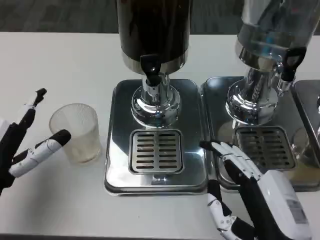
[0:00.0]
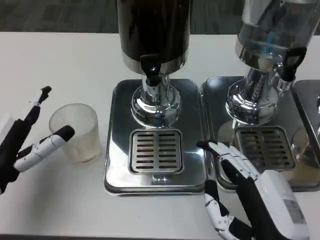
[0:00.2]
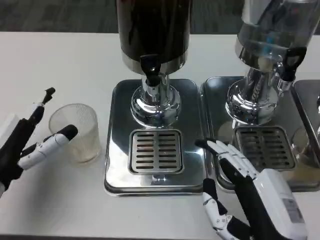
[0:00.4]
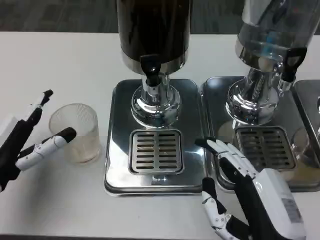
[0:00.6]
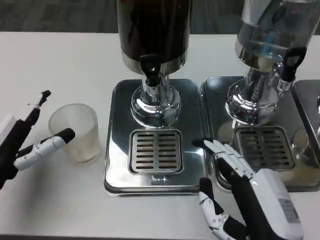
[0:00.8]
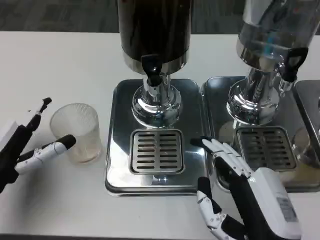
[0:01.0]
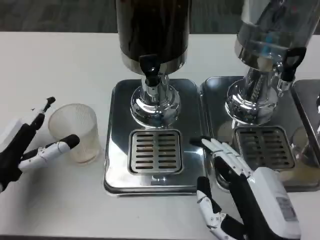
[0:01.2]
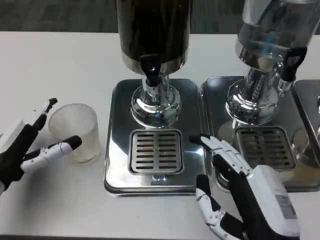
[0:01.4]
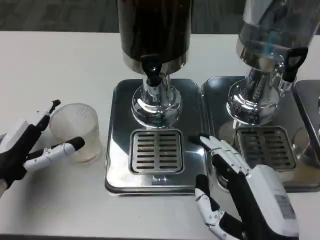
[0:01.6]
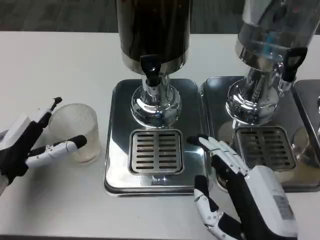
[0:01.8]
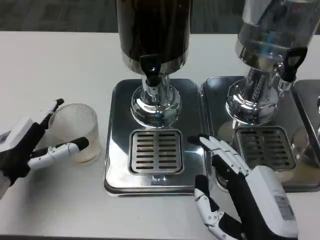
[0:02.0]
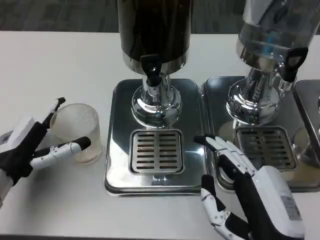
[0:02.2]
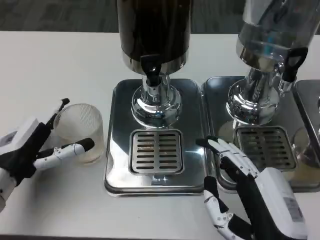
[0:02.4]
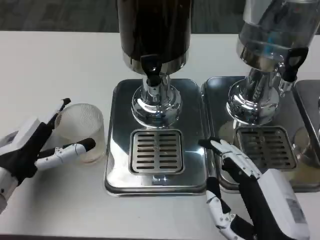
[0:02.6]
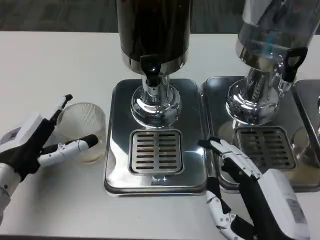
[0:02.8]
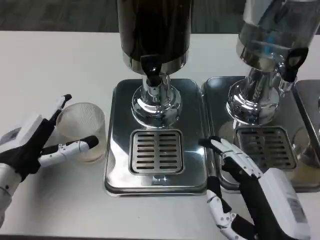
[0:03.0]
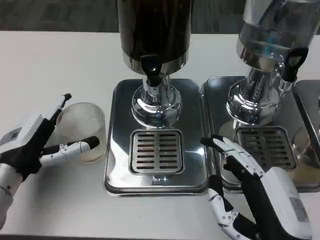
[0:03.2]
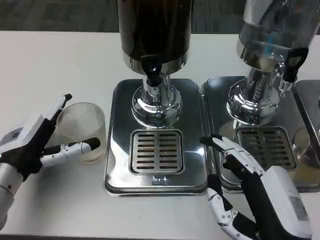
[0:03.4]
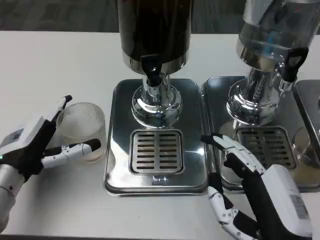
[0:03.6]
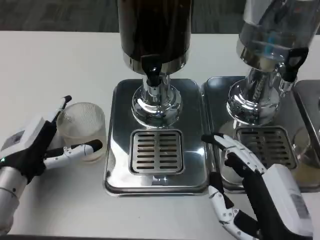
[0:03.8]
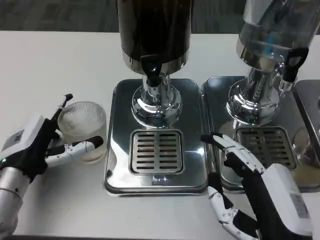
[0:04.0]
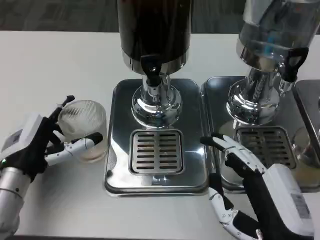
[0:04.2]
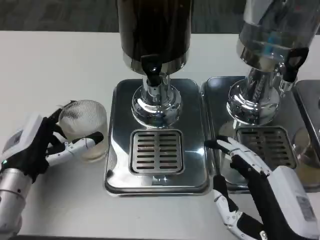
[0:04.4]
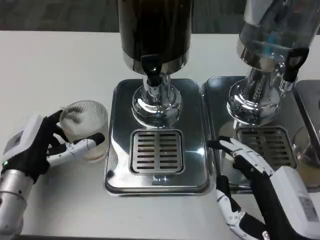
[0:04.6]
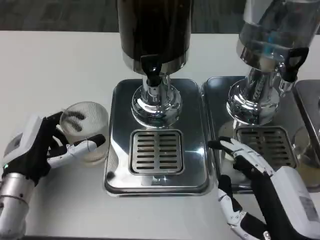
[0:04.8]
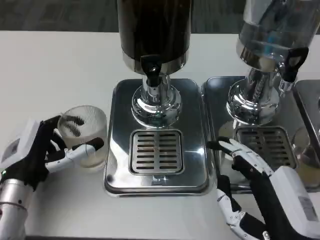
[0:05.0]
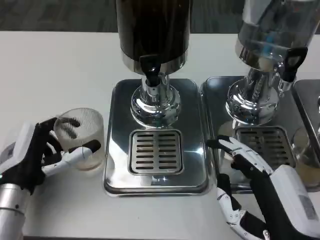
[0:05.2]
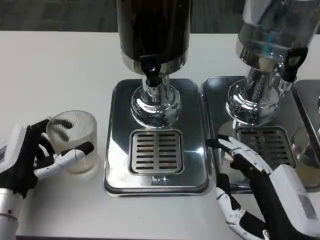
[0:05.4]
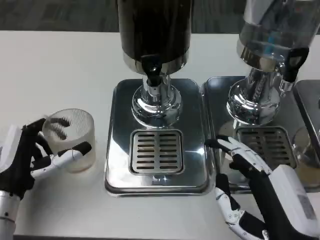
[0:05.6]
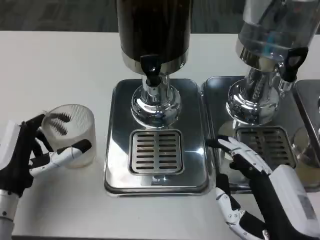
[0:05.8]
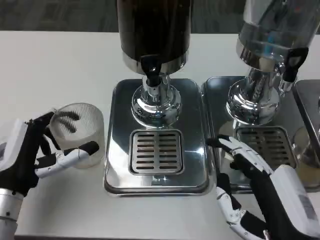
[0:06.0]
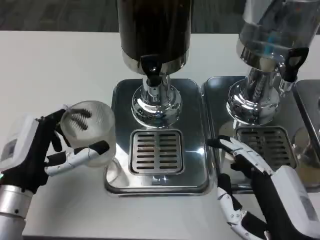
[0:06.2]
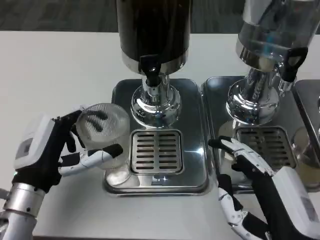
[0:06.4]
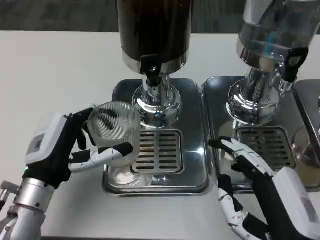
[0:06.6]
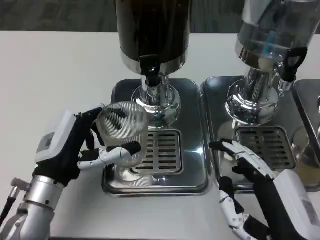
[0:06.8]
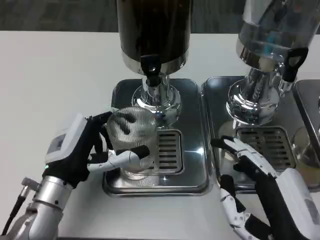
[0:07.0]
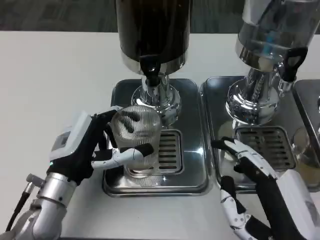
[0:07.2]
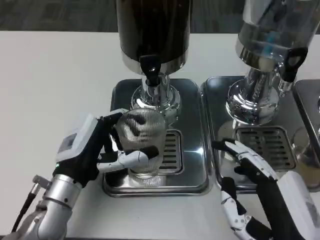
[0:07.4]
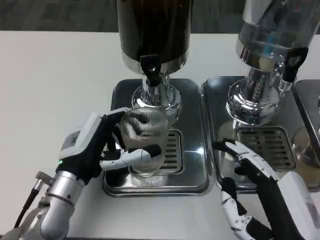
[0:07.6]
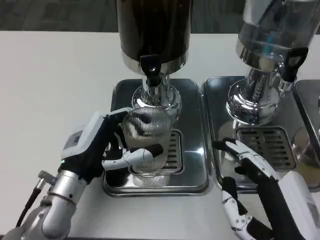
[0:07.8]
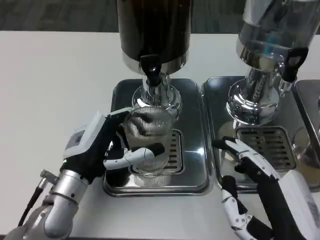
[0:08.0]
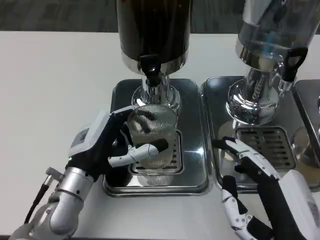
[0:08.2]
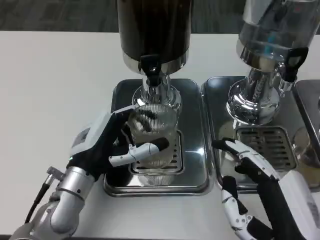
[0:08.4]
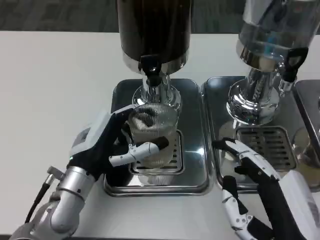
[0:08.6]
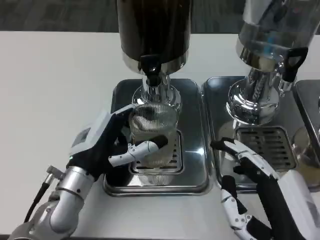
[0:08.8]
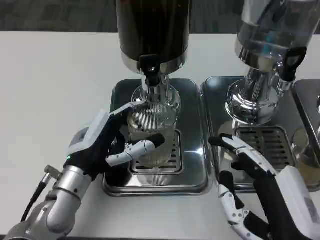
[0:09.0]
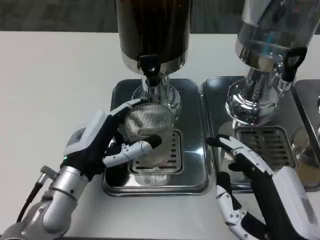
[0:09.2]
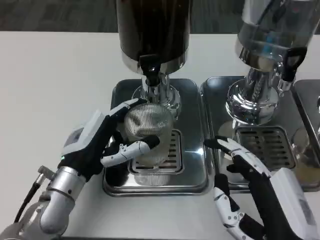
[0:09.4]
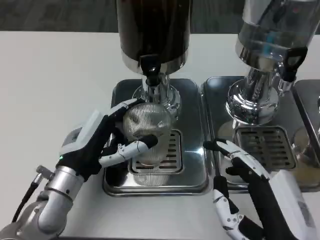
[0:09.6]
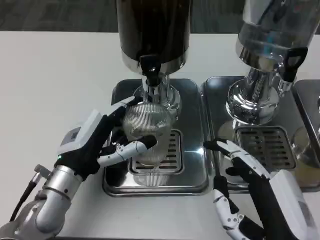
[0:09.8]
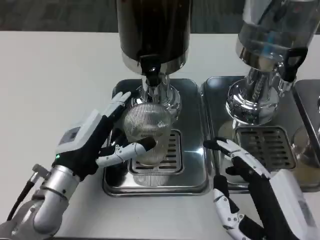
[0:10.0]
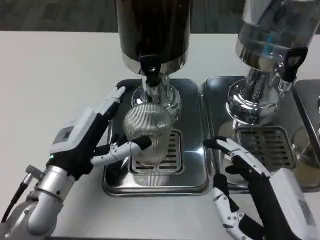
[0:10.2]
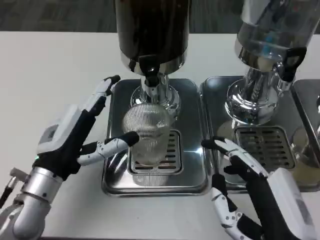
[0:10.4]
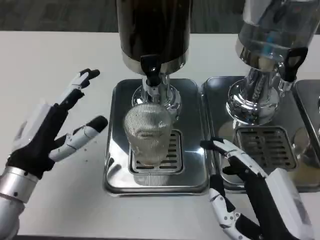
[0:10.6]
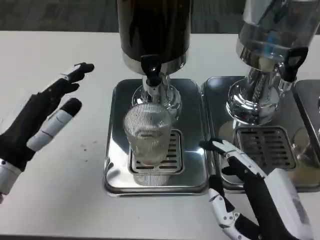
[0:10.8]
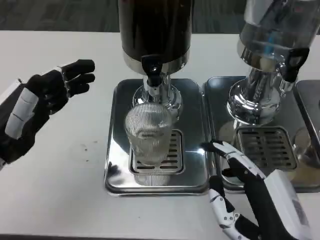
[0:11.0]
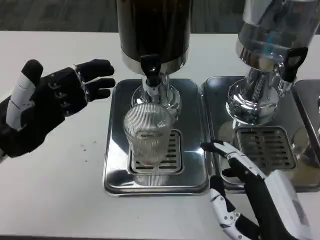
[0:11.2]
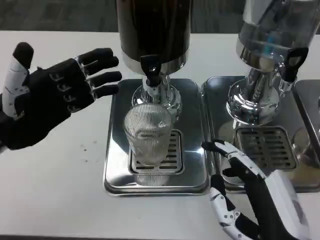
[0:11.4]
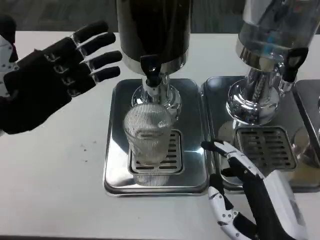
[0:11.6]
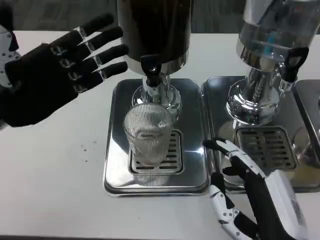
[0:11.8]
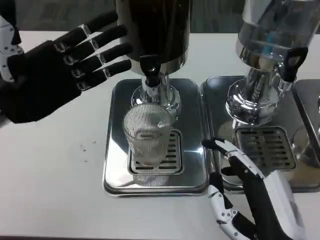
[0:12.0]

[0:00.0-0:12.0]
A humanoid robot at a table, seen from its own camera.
Task of the whole recording: Grasp the cup under the faucet to collect the drink, then remove the cup.
0:00.0 to 0:03.0: The hands make only small movements.
0:03.0 to 0:04.4: The hands move only a little.
0:04.4 to 0:06.0: There are only small adjustments of the hands.
0:06.0 to 0:07.6: The left hand moves to the right, about 5 cm.
0:07.6 to 0:09.0: There are only small adjustments of the hands.
0:10.4 to 0:12.0: The left hand travels upward, to the left and forward by some 15 cm.

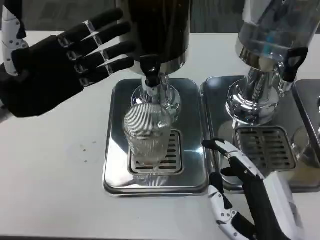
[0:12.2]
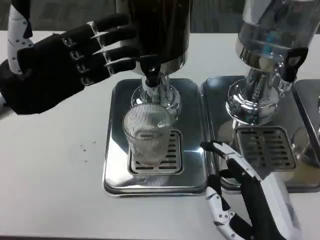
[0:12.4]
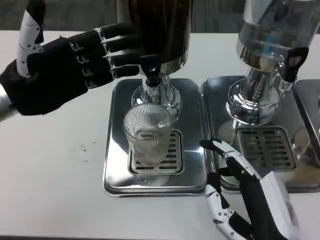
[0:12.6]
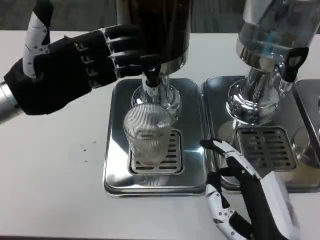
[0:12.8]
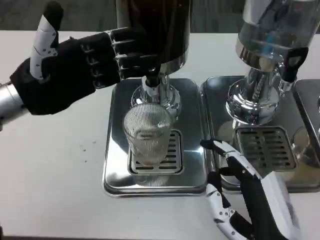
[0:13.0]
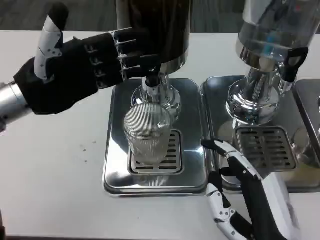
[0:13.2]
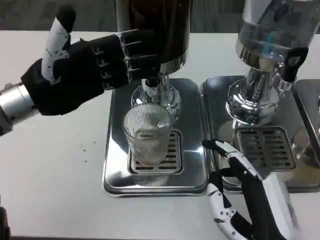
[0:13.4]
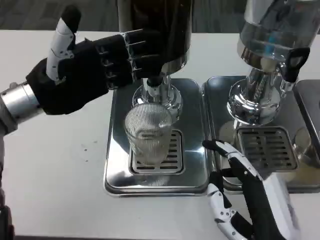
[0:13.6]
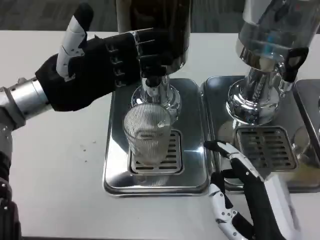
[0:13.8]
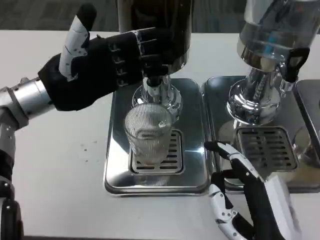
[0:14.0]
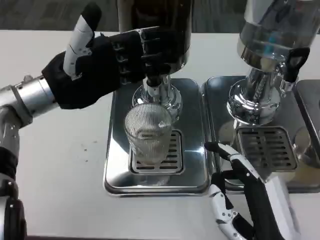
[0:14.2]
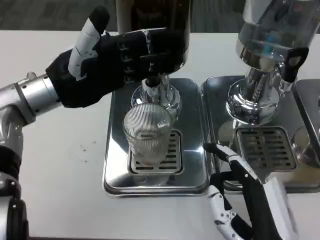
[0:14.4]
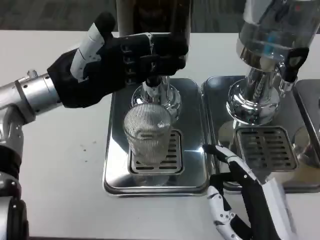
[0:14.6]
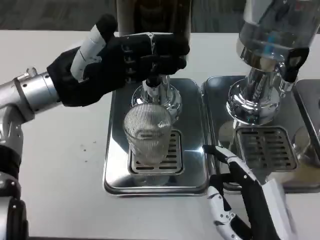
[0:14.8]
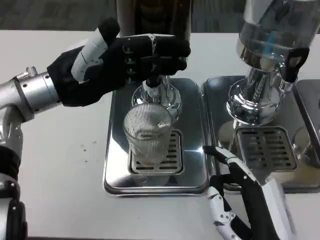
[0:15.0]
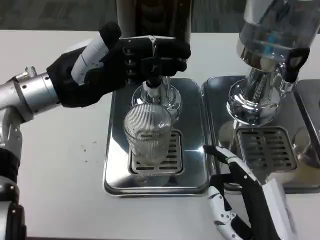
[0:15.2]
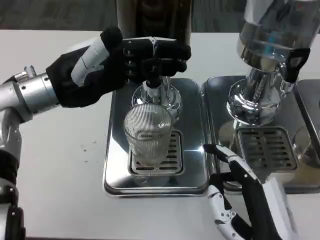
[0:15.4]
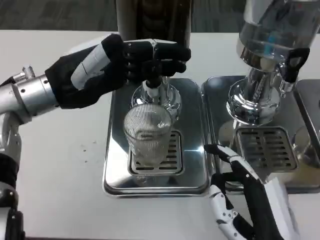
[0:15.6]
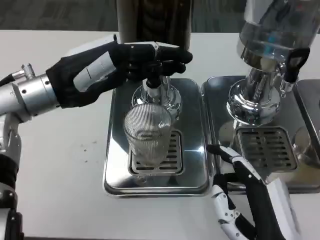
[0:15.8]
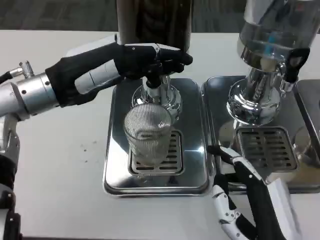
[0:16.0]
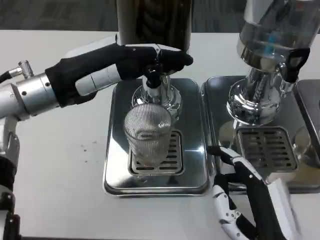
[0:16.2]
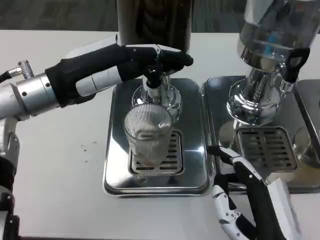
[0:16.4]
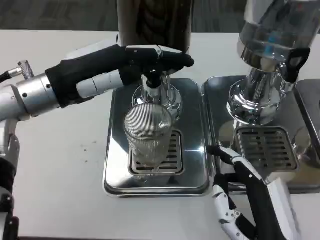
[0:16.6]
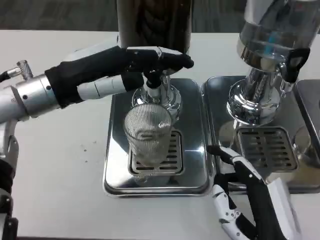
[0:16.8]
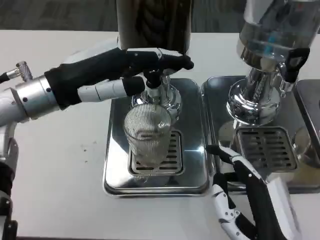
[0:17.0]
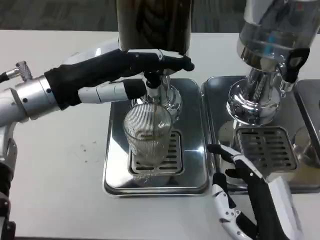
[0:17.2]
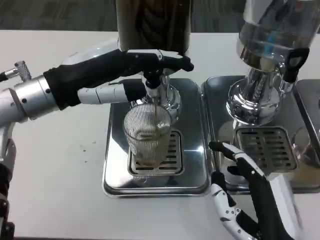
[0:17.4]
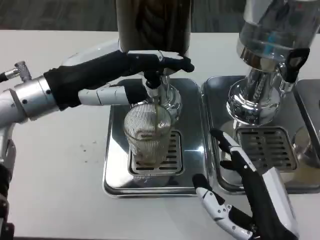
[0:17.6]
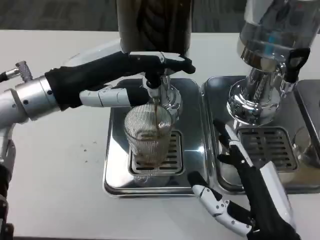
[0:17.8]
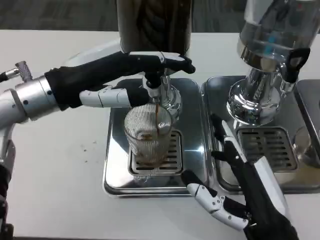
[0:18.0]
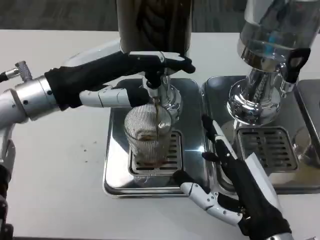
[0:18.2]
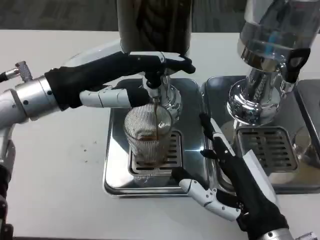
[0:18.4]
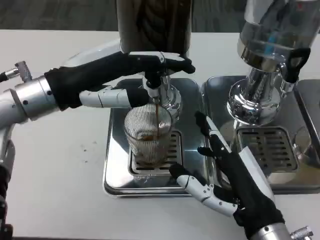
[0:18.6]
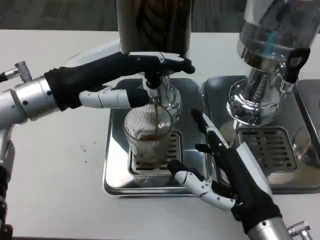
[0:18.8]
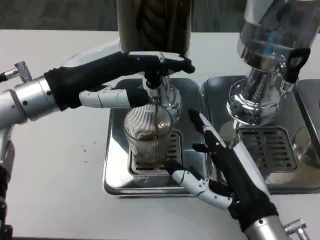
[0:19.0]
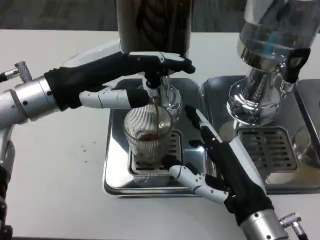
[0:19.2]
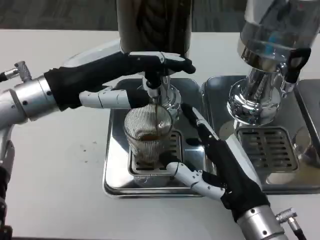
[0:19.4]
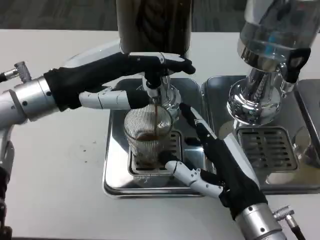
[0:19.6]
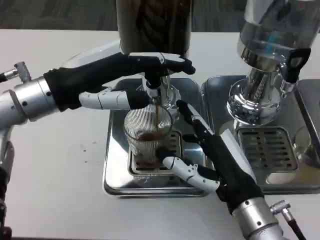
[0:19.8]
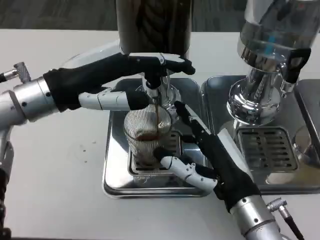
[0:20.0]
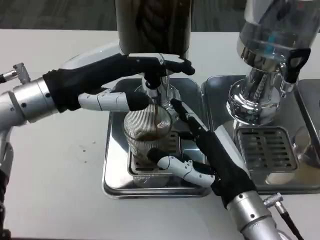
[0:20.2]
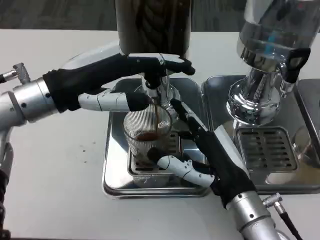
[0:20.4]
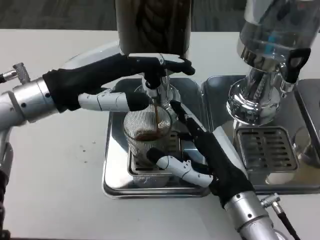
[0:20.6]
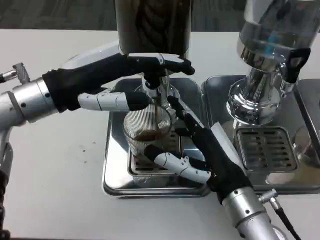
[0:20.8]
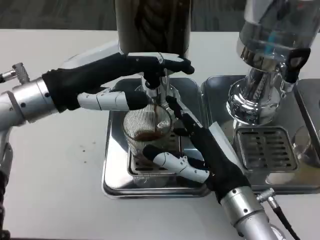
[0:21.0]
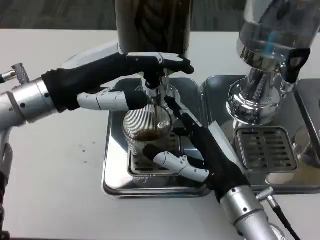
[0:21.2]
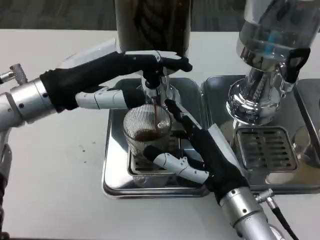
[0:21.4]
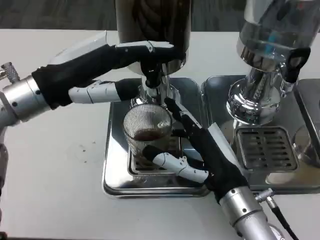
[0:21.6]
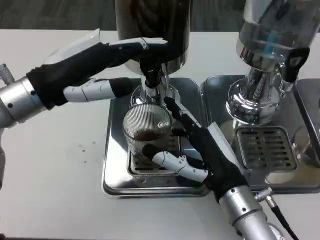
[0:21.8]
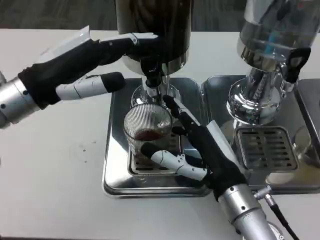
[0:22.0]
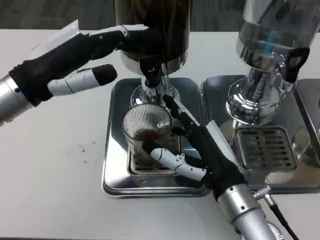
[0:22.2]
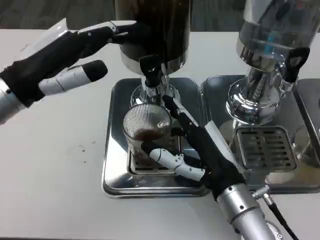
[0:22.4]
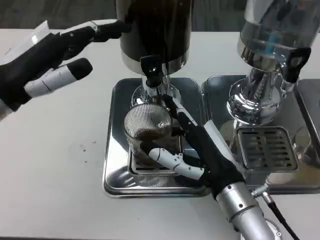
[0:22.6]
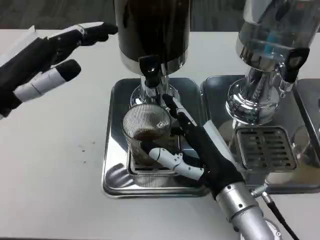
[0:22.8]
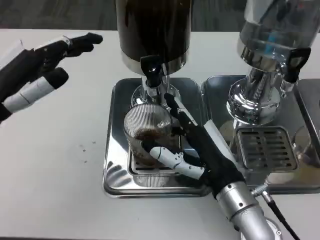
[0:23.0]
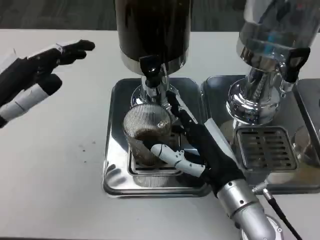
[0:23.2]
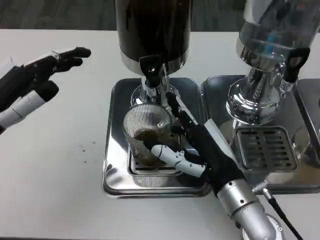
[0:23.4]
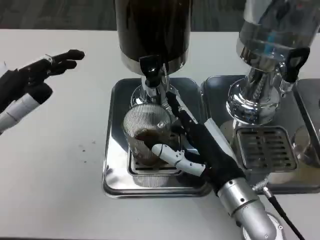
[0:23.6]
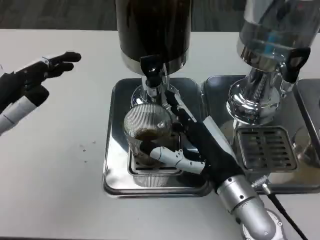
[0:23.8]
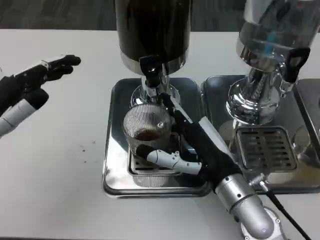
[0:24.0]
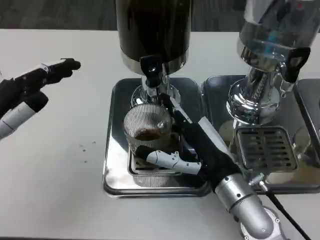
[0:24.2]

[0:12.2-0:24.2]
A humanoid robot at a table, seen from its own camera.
Task of the whole recording: Grasp the cup under the faucet to collect the drink, then remove the cup.
0:12.2 to 0:13.8: The left hand moves approximately 5 cm.
0:13.8 to 0:15.2: The hands make only small movements.
0:16.6 to 0:18.2: There are only small adjustments of the hands.
0:18.2 to 0:19.8: The right hand heads forward, covering some 5 cm.
0:19.8 to 0:21.2: The hands make only small movements.
0:21.2 to 0:22.6: The left hand shifts by some 5 cm.
0:22.6 to 0:24.2: The left hand moves backward, roughly 5 cm.
